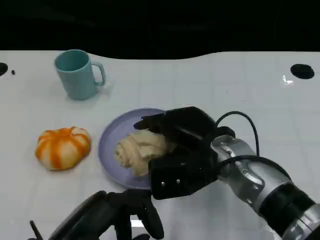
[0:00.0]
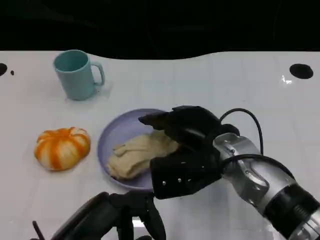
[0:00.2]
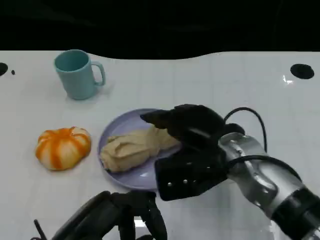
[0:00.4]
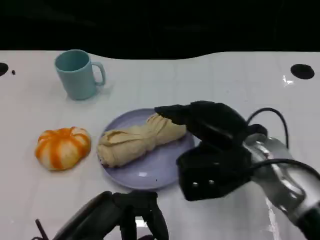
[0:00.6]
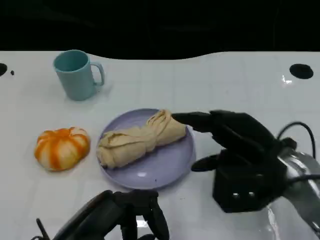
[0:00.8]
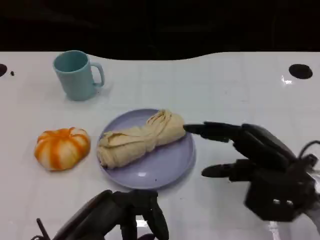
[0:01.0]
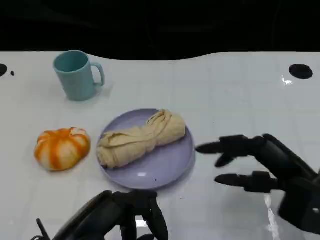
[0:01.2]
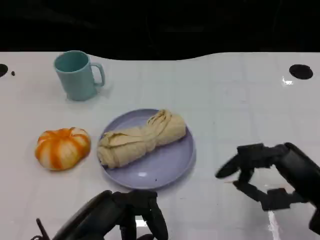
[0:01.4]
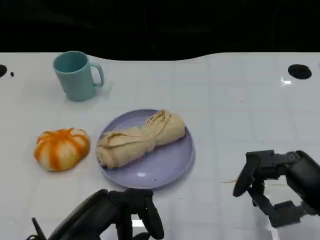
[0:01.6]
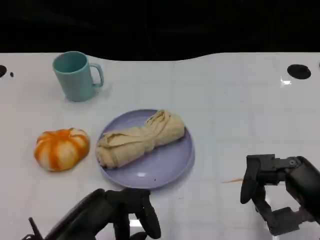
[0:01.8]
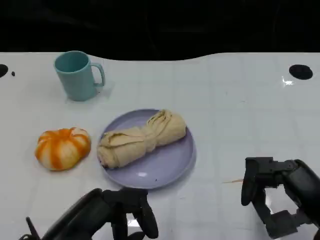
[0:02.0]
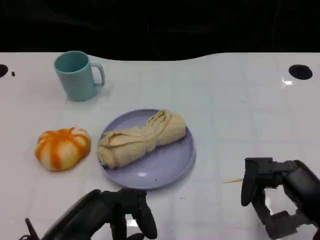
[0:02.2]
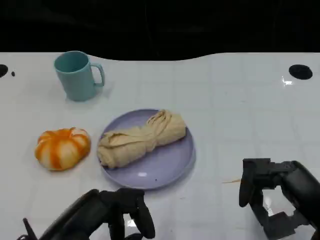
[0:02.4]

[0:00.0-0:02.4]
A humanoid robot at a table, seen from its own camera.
Task of the whole recording: Grasp the towel on the left side of the plate with the left hand and place it into the plate.
0:00.0 to 0:01.2: The right hand is displaced to the right and backward by roughly 15 cm.
0:01.2 to 0:02.4: There are only small adjustments of the hands.
